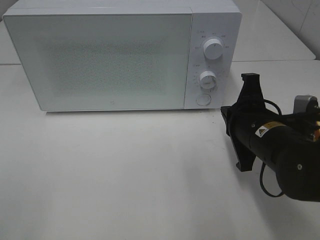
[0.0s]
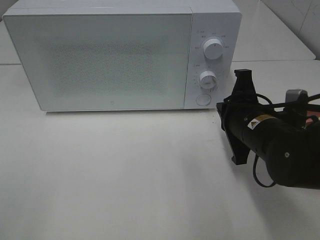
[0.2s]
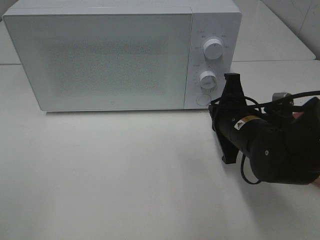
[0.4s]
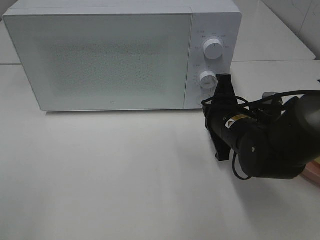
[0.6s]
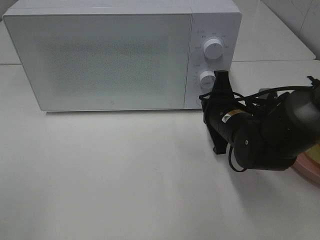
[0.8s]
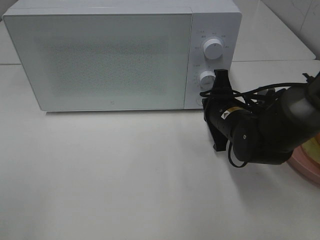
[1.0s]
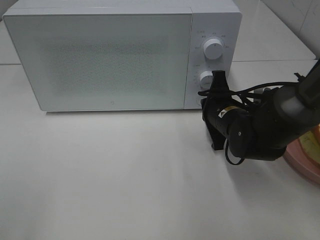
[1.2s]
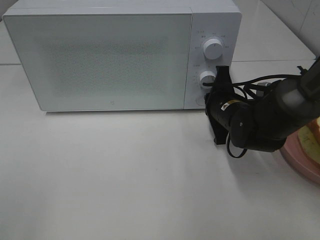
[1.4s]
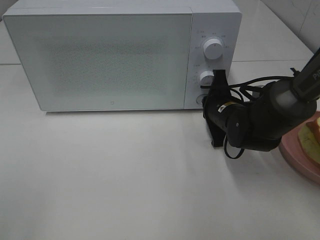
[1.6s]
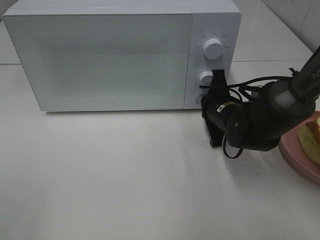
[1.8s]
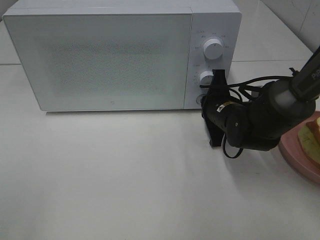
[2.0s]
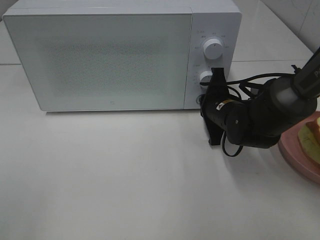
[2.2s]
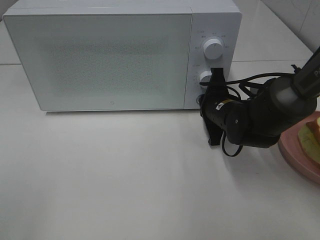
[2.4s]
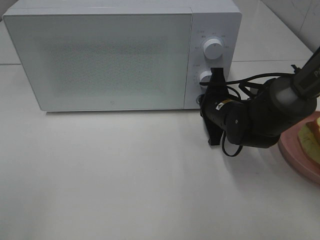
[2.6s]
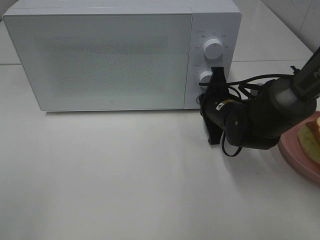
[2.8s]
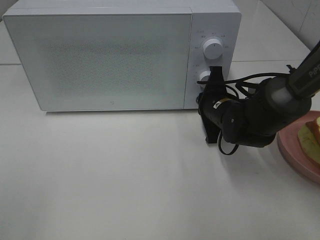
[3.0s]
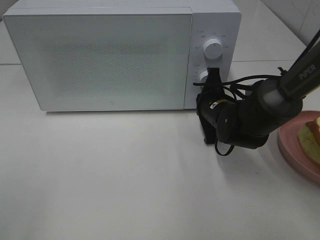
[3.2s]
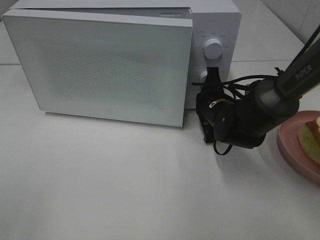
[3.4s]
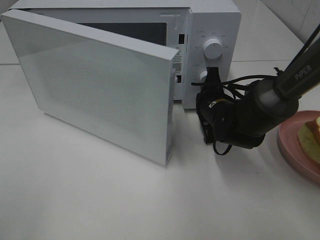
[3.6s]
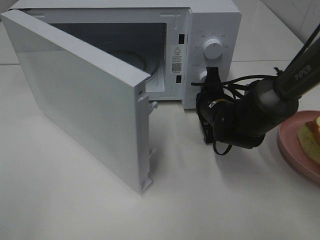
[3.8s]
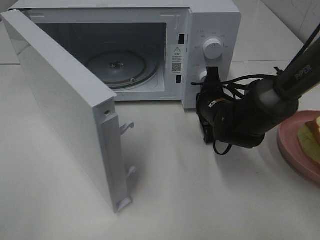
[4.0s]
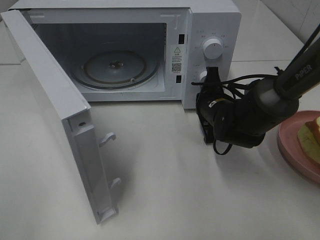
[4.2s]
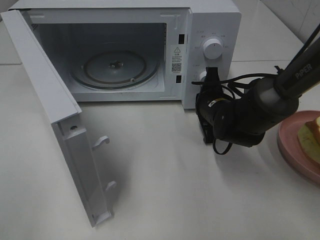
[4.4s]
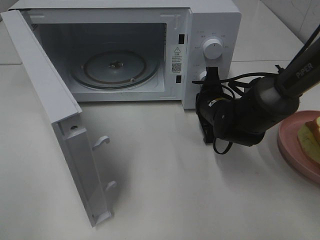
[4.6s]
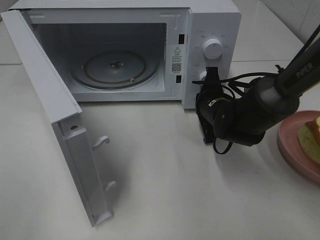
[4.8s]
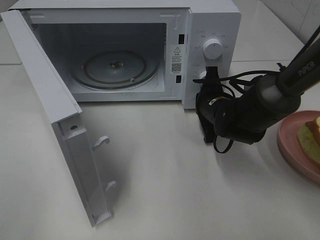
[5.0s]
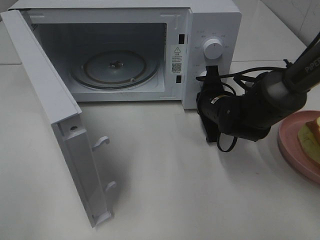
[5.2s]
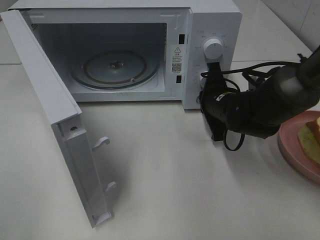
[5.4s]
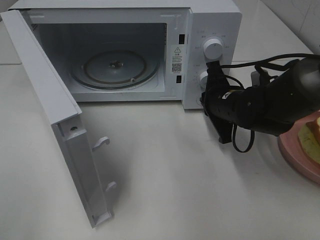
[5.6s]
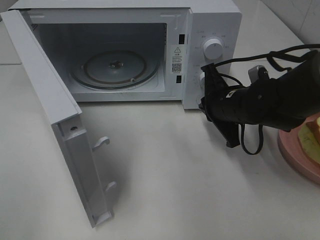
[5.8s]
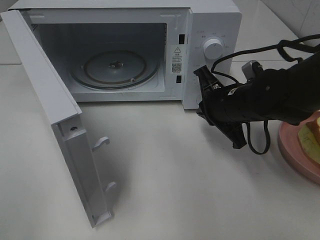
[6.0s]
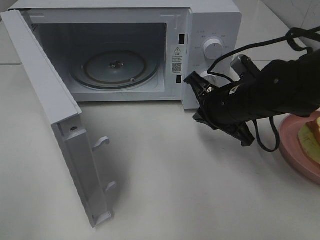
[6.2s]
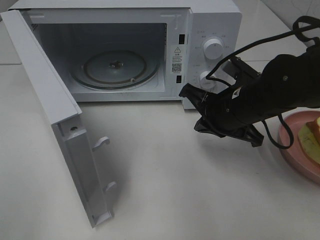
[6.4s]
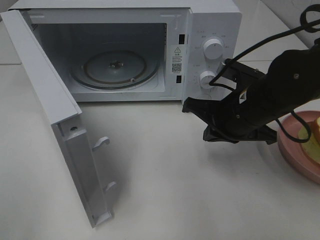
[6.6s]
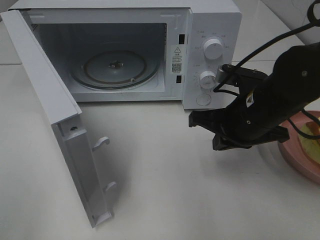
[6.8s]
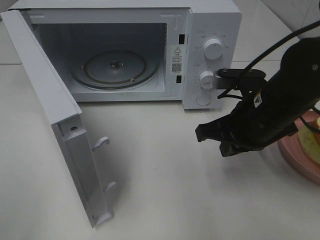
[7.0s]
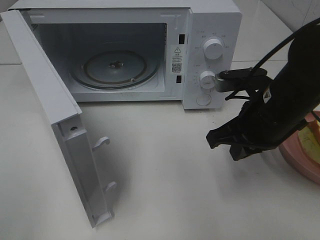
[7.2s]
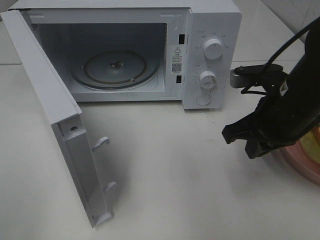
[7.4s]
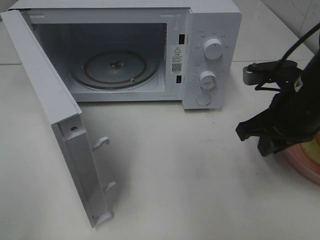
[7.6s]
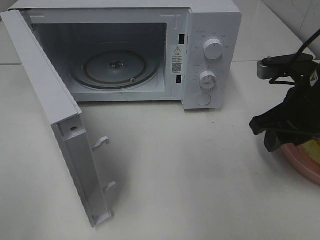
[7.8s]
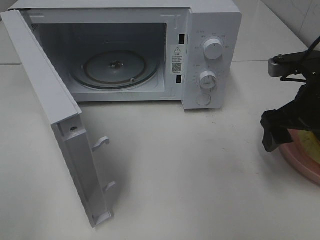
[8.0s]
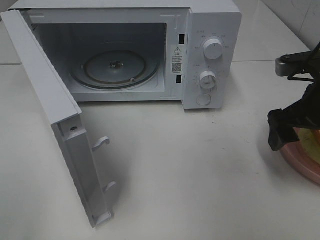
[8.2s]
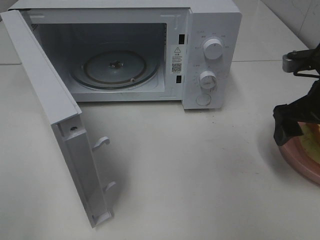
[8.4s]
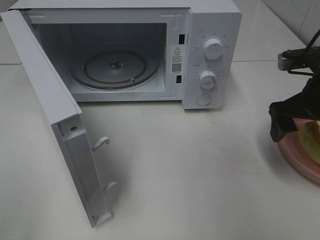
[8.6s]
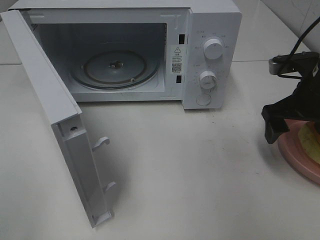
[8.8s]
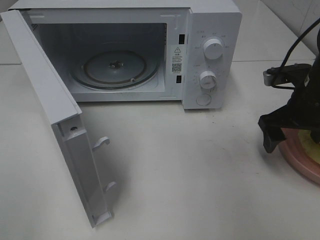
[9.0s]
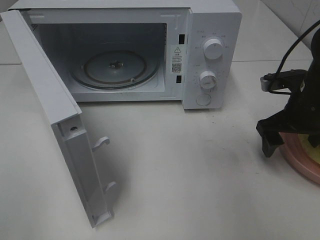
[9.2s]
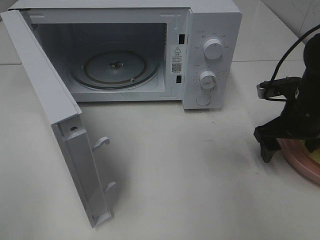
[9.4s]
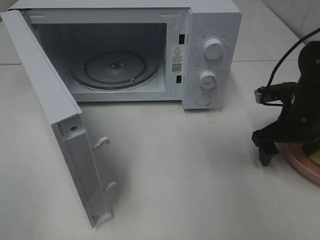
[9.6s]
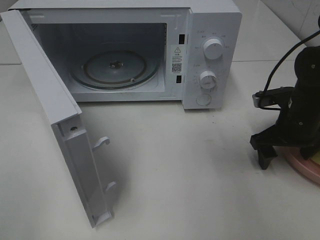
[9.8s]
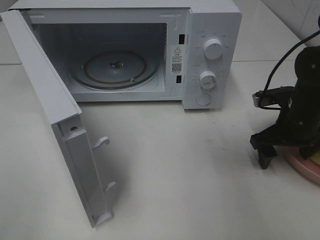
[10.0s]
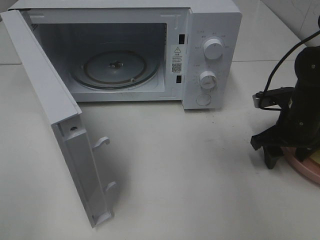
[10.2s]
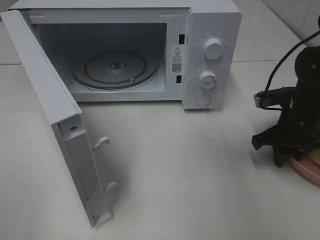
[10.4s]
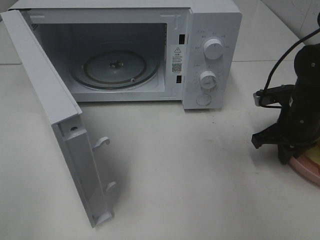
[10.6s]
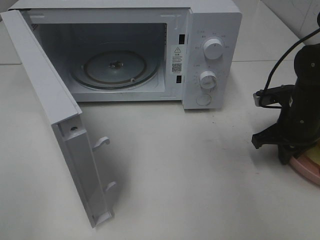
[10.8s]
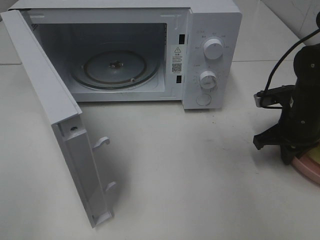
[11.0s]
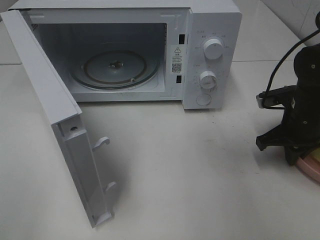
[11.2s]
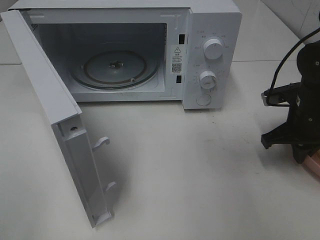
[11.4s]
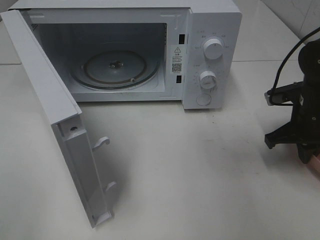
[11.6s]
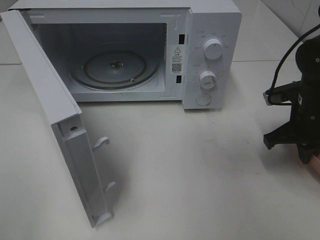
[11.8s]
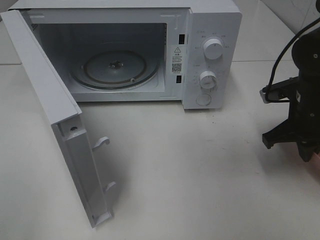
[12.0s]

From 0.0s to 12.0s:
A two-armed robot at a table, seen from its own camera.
Task of the whole recording: Heat Sandwich.
Step, from 0.0s to 5.8s: Right hand: press the switch.
Step, from 6.0s to 10.6s: Right hand: grab the plate with the sandwich.
From 0.0s to 1.6s: The right gripper goes approximately 10 cm forward and downward.
From 1.6s to 3.0s: Neither gripper changes place.
From 4.4s to 6.0s: The right gripper is displaced upward by about 5 cm.
From 6.0s to 7.6s: The right gripper travels to the right, upward and backward by approximately 10 cm.
From 7.6s to 9.0s: The right gripper goes roughly 5 cm to the right and forward, and opens up.
From 9.0s to 10.4s: The right gripper travels downward by some 5 cm, and closes.
From 10.4s to 12.0s: The grippers make only small movements.

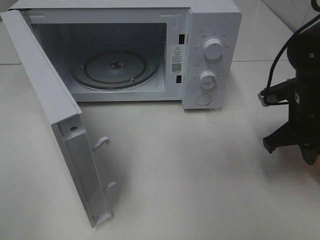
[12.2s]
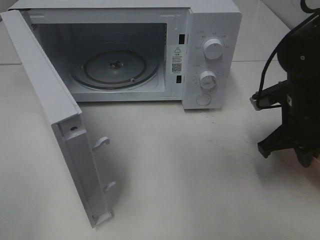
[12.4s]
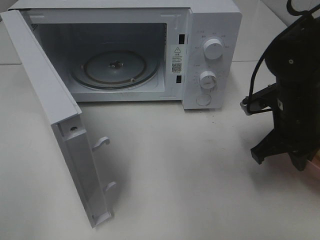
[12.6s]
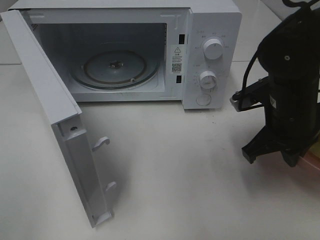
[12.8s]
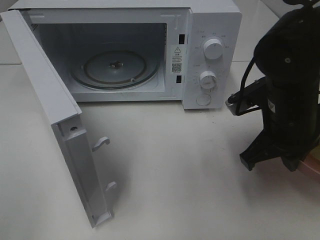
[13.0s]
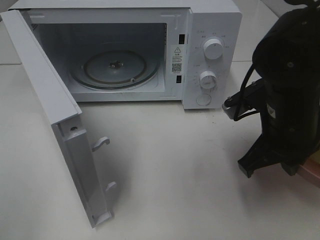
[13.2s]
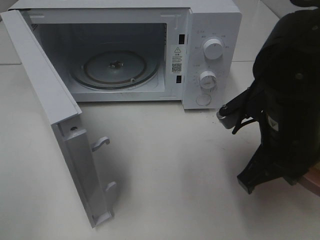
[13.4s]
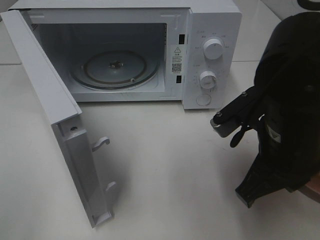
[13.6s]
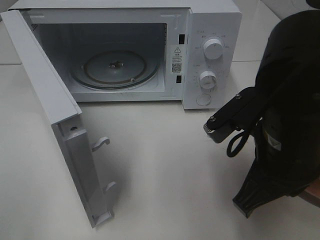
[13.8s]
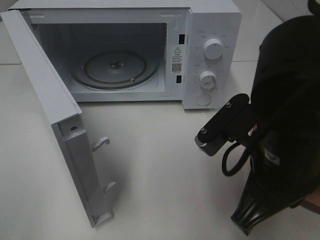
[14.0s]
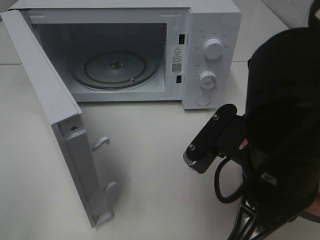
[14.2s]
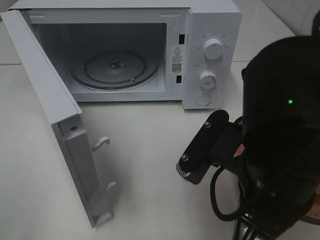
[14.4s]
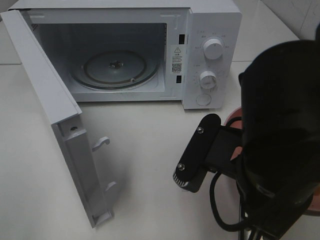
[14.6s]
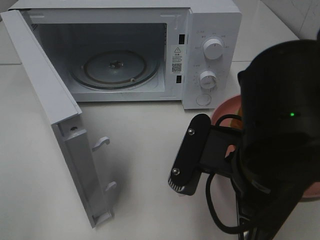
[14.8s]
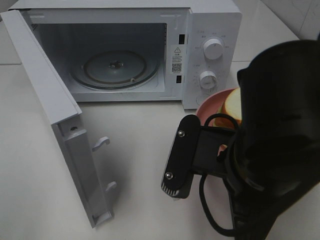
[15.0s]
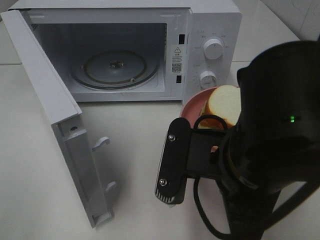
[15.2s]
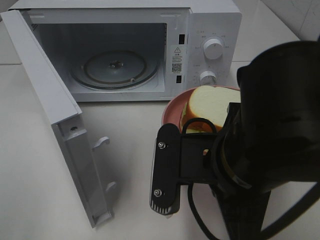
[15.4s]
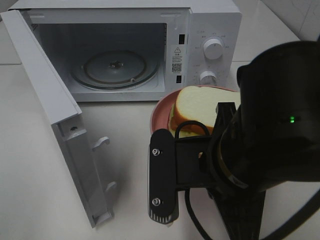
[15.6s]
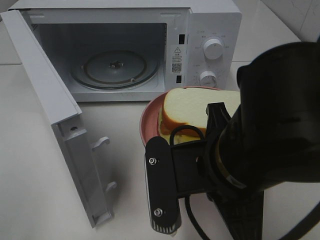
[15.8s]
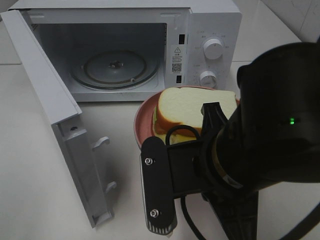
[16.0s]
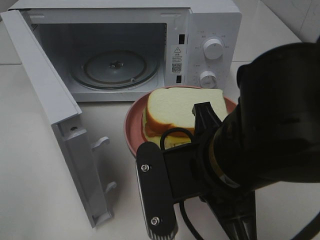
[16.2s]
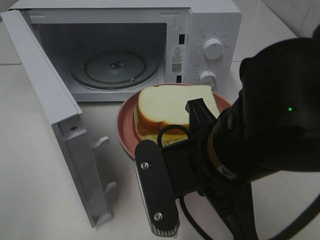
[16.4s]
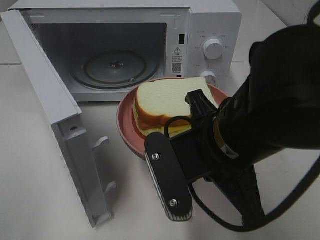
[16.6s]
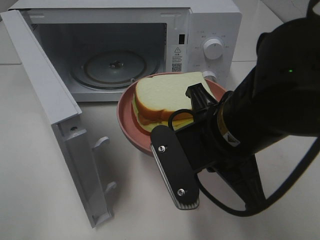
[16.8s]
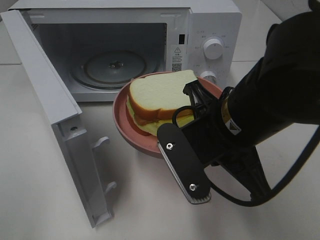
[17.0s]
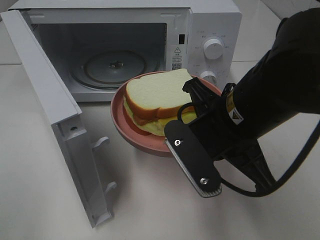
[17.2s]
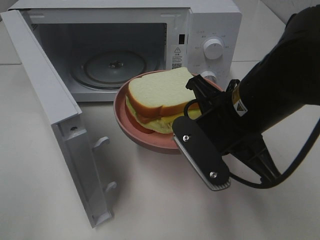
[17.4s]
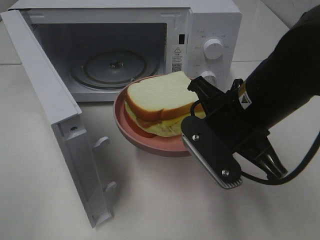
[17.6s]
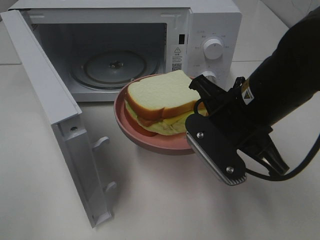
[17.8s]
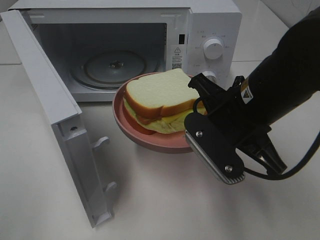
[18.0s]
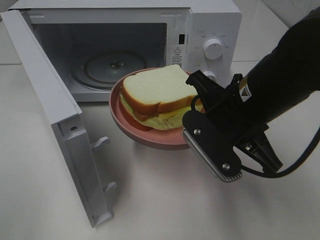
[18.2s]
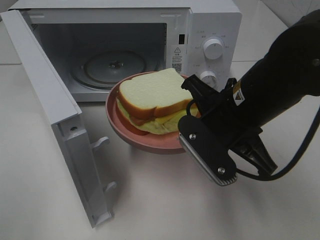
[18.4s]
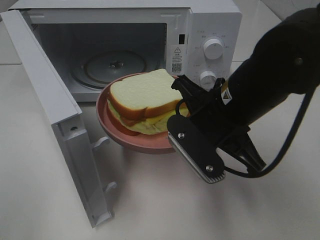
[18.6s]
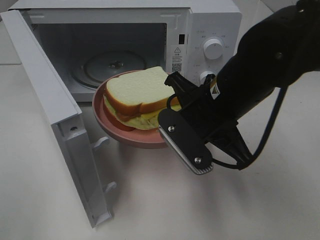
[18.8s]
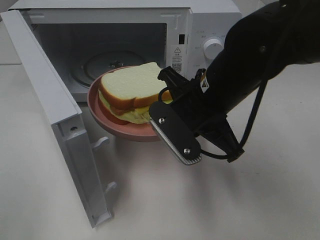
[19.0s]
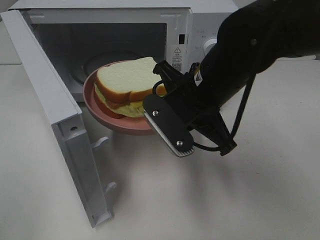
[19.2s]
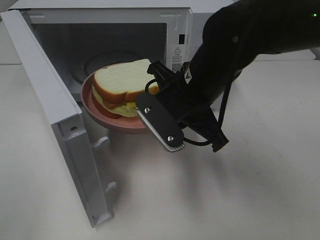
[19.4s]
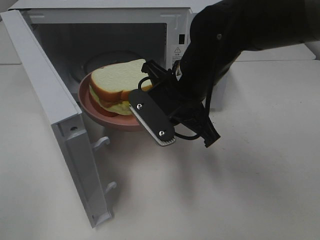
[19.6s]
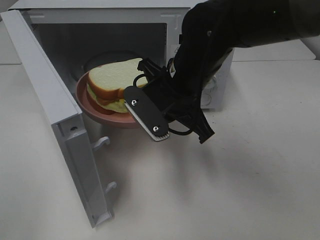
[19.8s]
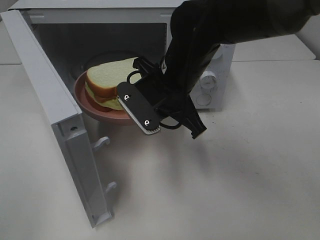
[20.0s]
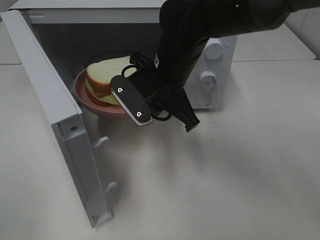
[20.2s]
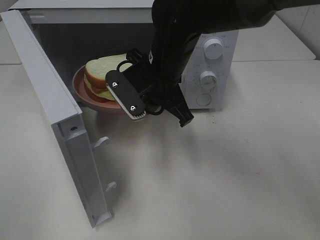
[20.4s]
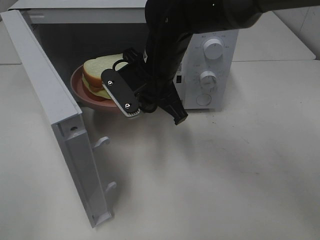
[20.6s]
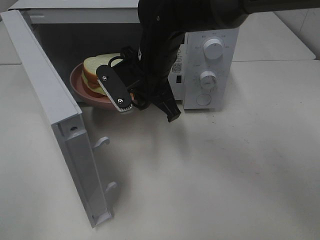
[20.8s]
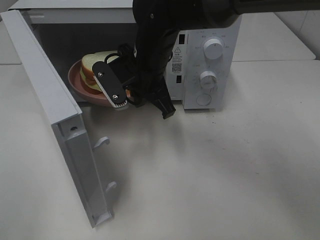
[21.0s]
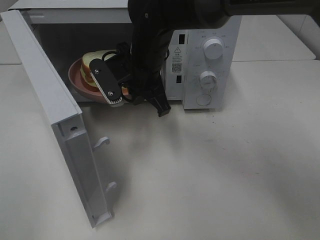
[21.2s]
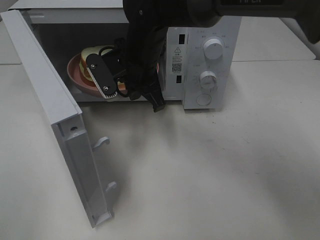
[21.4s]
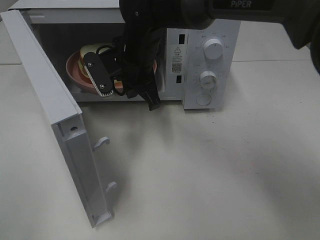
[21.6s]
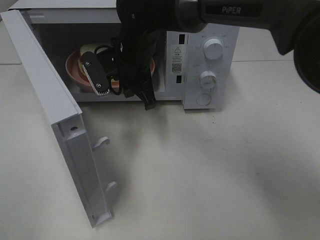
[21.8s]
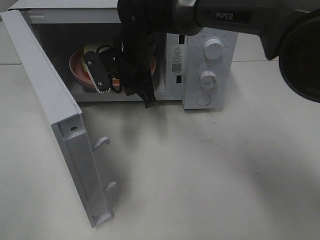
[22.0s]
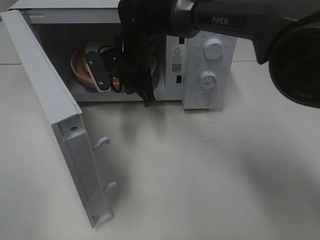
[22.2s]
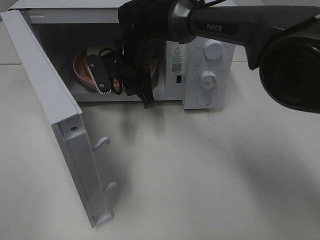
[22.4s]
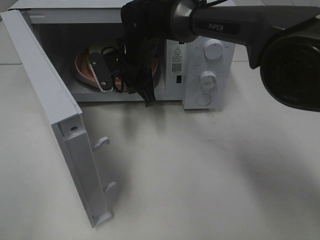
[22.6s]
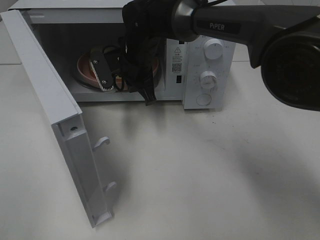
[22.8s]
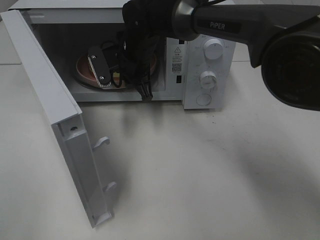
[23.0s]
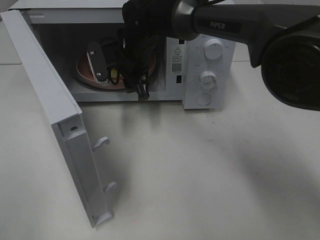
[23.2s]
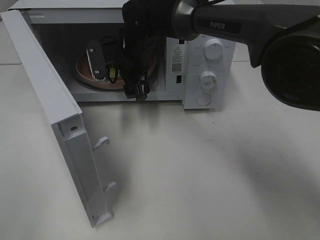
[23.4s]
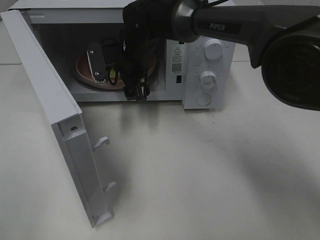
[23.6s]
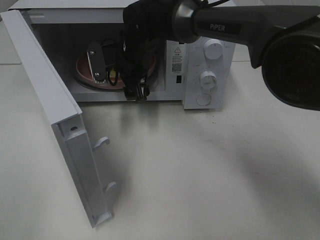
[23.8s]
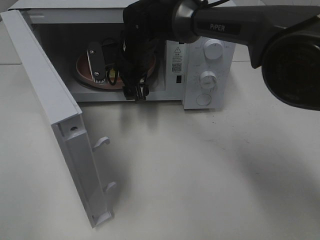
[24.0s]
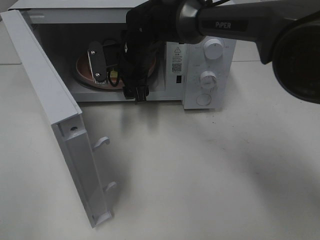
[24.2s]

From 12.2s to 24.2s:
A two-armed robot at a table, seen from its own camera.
Task of the whole recording: Heat Sandwich.
From 12.2s to 13.8s: The right gripper travels backward, to the left and upward by about 15 cm.
From 13.8s to 15.2s: The right gripper changes place by about 5 cm.
From 16.6s to 18.2s: The right gripper moves forward, roughly 5 cm.
From 18.2s to 19.8s: The right gripper is displaced to the left and forward by roughly 10 cm.
From 19.8s to 21.2s: The right gripper shifts roughly 10 cm forward and to the left.
From 21.2s to 22.6s: The right gripper heads forward, covering some 5 cm.
From 22.6s to 24.2s: The right gripper opens its fingers.
